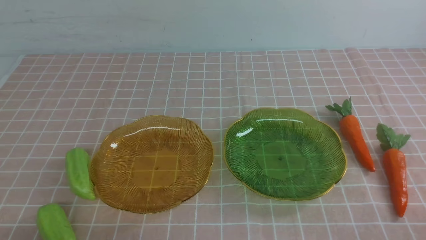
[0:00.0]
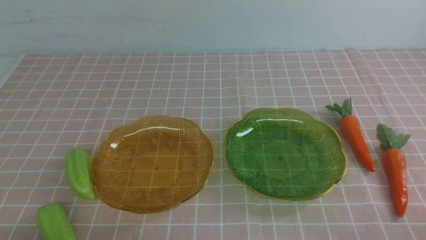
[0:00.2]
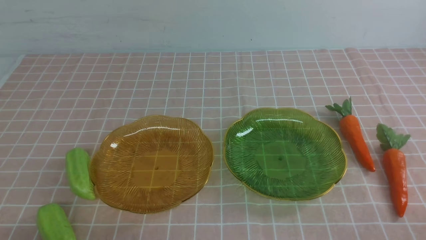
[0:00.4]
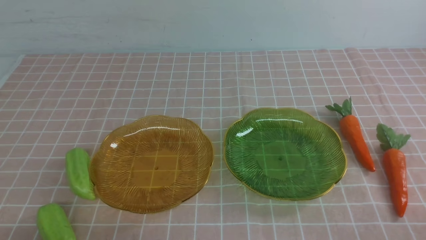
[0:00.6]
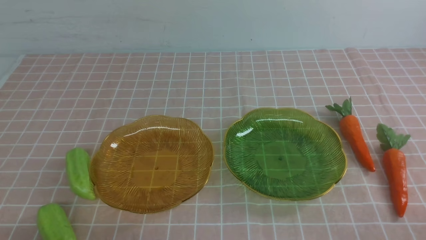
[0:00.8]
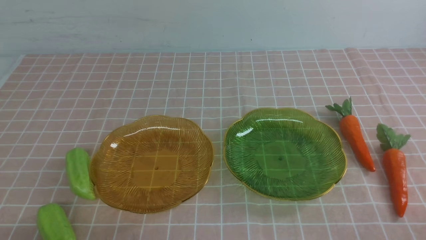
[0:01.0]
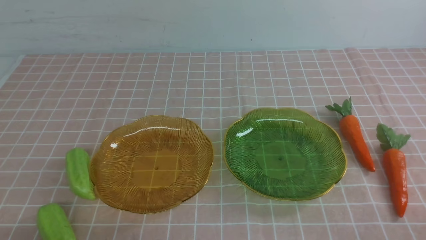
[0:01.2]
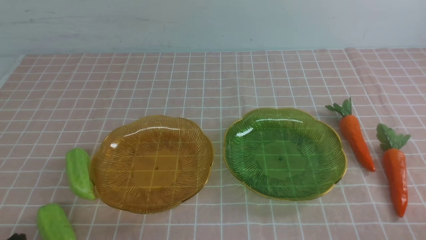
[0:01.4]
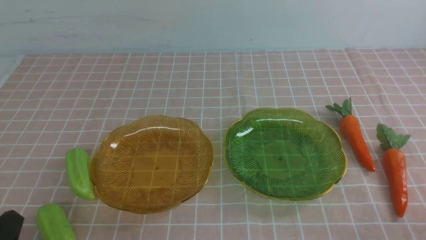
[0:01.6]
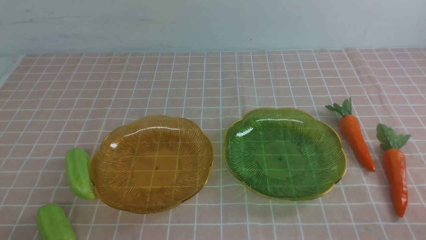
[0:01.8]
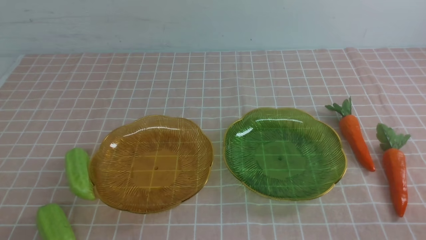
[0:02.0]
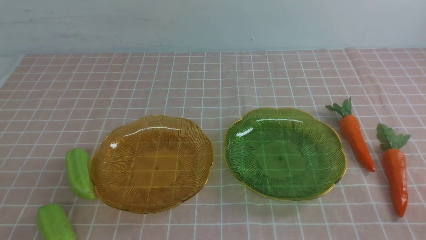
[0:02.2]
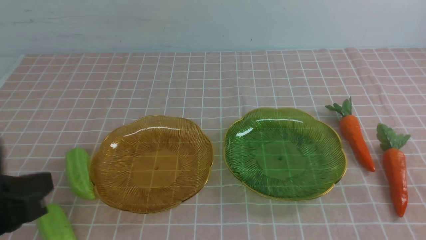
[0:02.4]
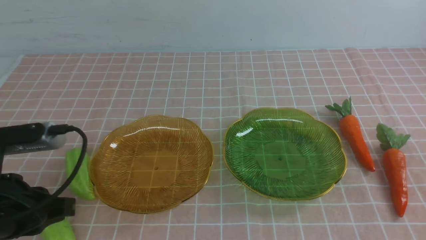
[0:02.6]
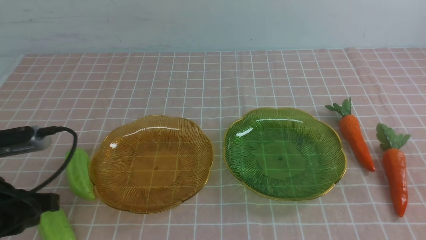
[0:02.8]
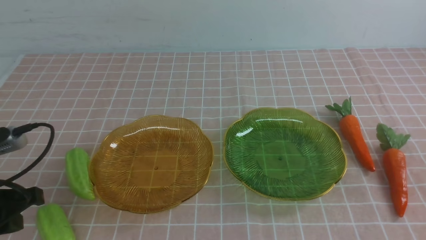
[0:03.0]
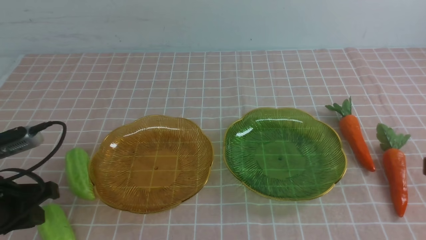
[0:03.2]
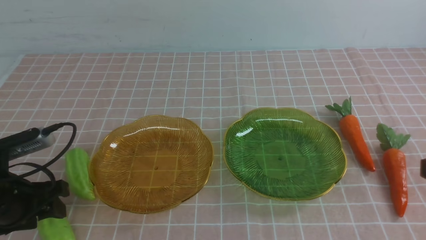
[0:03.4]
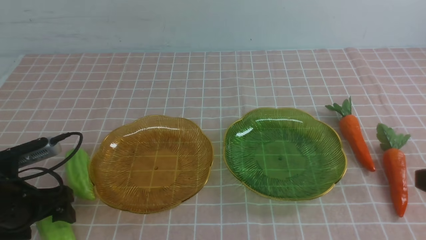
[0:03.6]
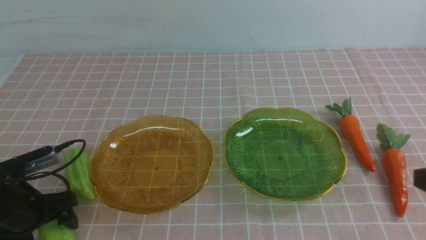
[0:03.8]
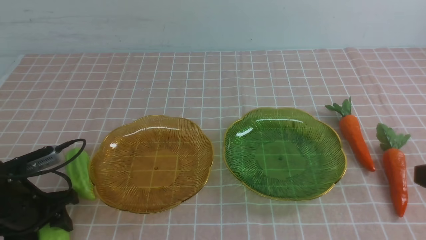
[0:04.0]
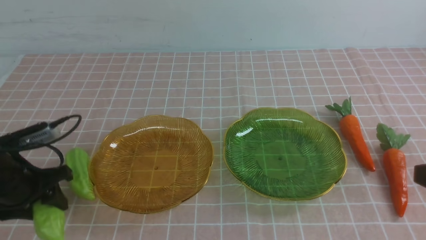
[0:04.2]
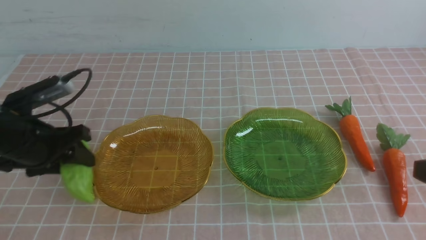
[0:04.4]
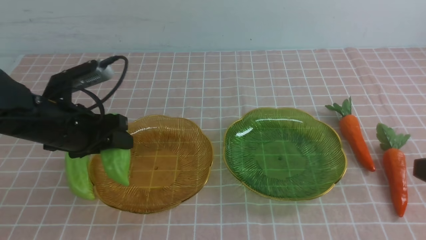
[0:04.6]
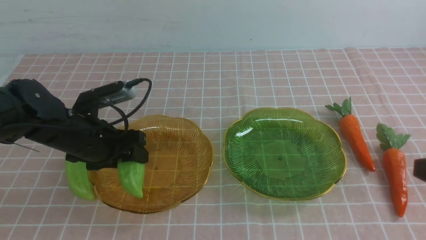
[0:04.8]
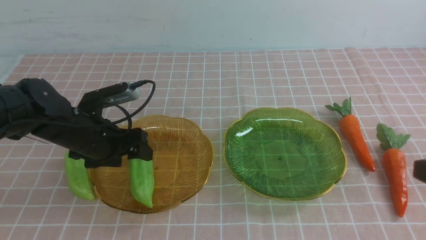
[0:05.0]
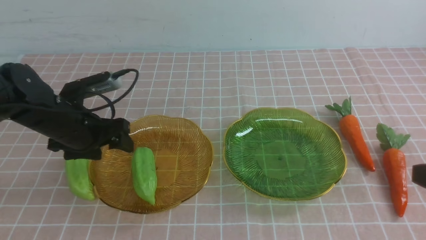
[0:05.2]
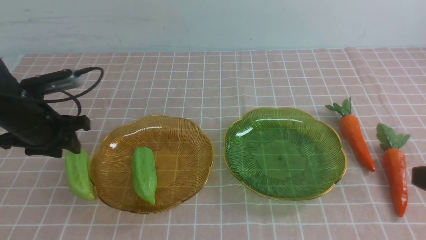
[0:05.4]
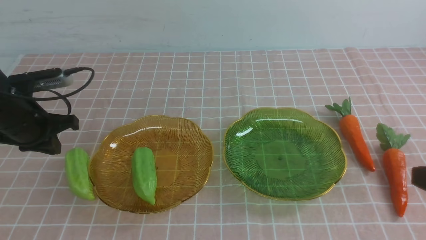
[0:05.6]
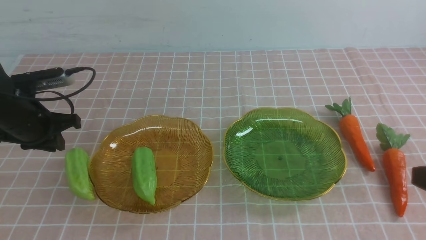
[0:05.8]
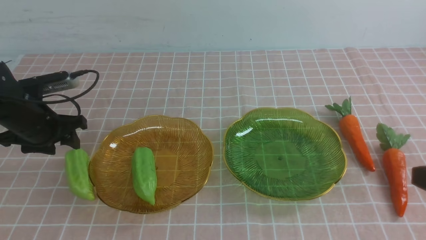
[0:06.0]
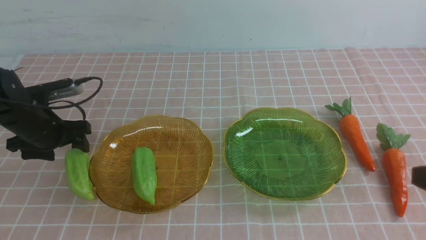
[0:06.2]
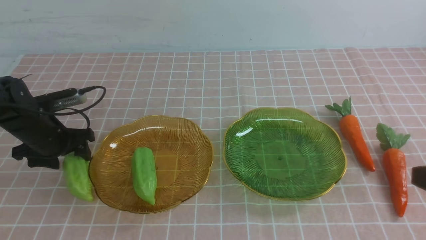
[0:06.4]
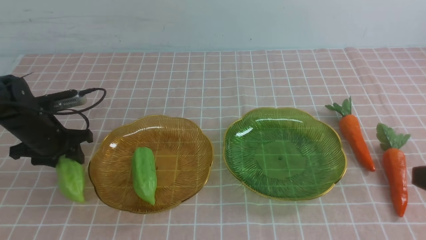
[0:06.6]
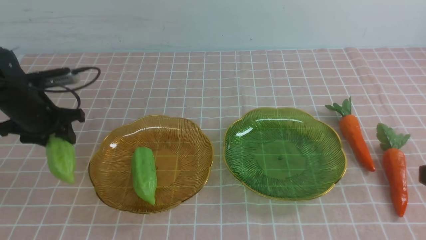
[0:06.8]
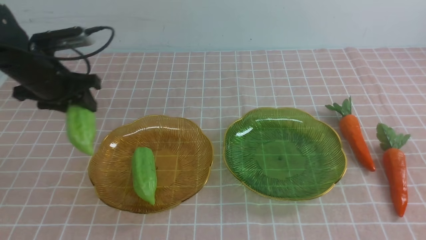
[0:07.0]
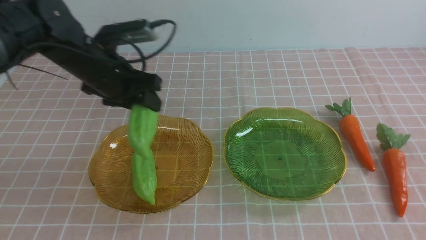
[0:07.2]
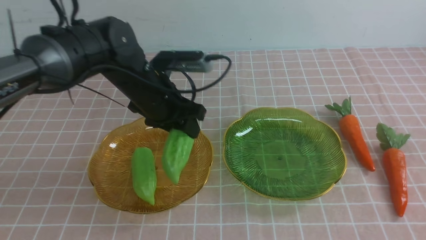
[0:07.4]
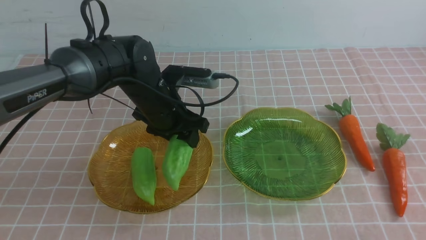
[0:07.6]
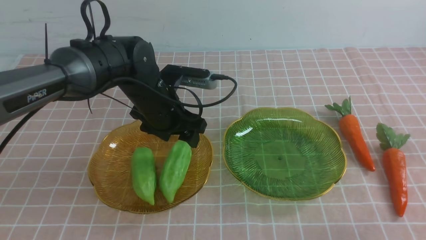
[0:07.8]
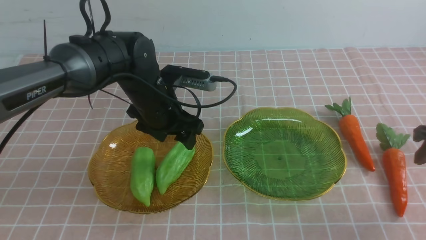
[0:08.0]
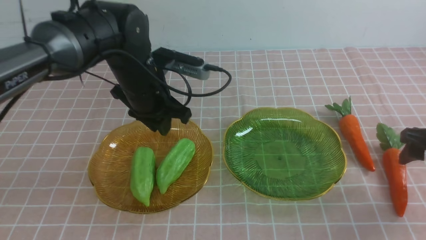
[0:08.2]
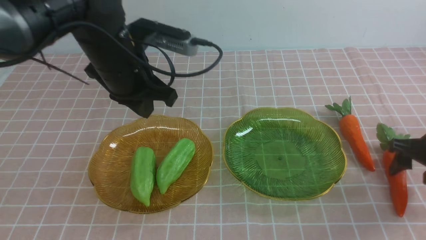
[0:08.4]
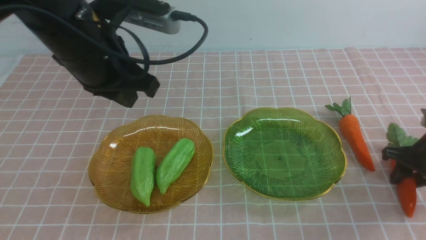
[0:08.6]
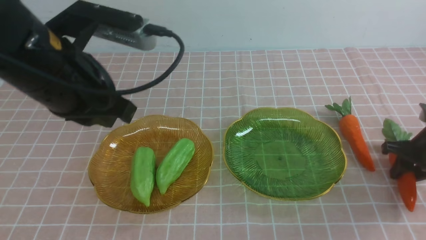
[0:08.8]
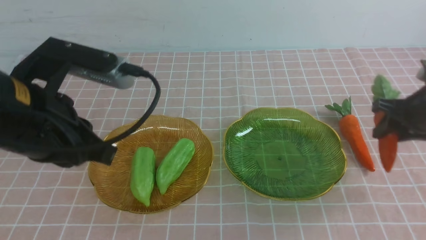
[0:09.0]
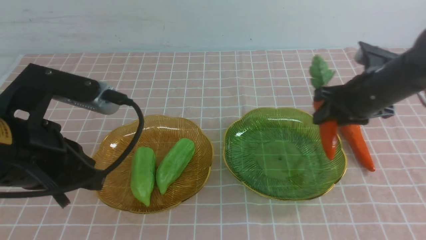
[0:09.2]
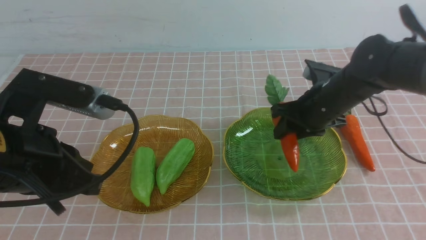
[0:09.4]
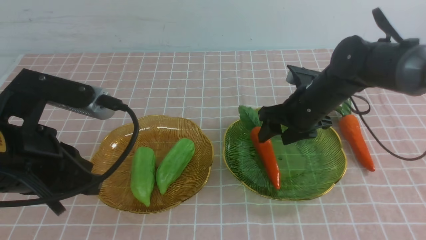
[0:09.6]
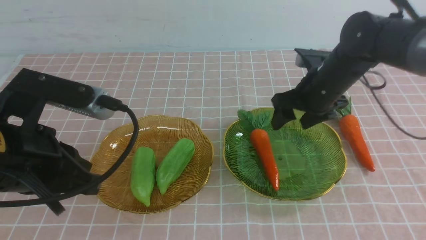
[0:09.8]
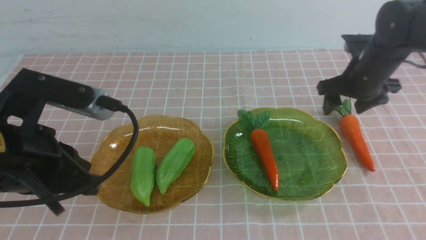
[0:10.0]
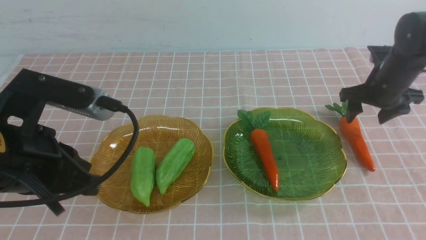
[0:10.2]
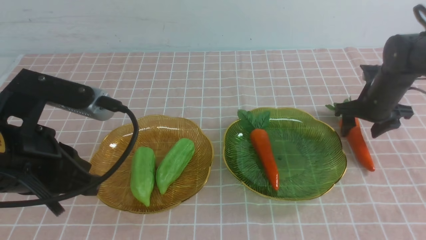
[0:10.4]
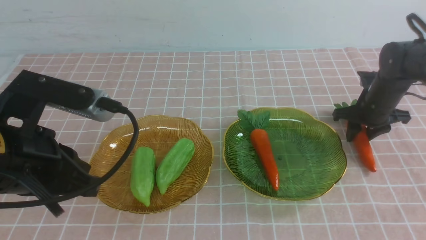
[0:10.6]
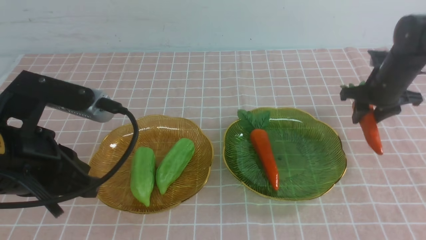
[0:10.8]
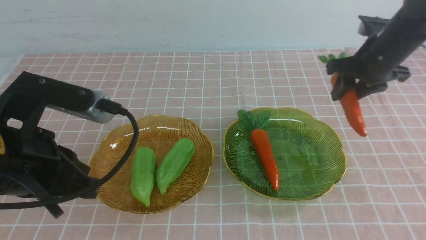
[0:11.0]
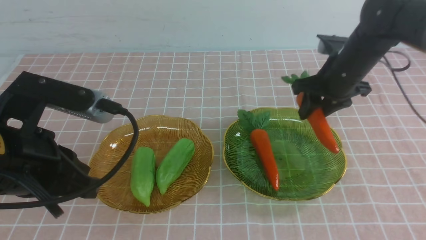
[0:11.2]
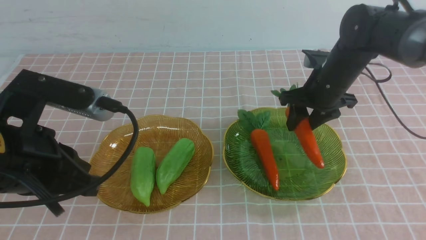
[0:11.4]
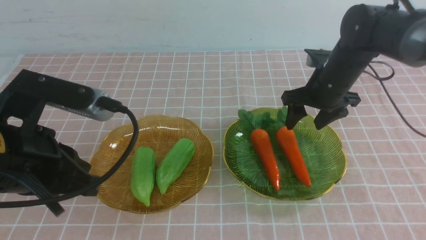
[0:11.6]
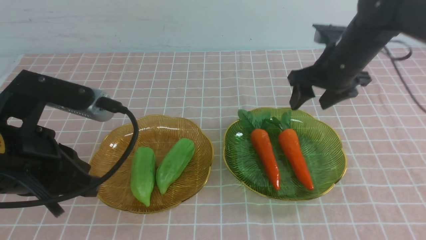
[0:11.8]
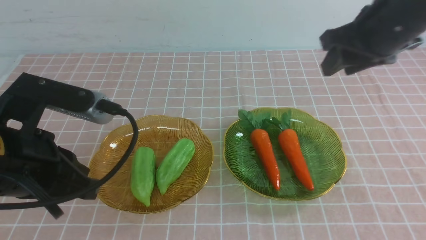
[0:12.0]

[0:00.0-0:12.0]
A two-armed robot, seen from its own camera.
Step, 0:00.0 to 0:05.0: use the left arm to grab a chayote and put it into the left plate.
Step, 0:05.2 to 0:08.0: use the left arm to grab a chayote and put it into the left plate.
Step, 0:08.2 to 0:09.4: use the right arm to grab a carrot and put it into the right plate.
Step, 0:09.8 to 0:11.4: use the right arm to grab a carrot and put it into the right plate.
0:01.6 to 0:03.0: The left gripper is displaced forward by roughly 10 cm.
0:03.0 to 0:04.4: The left gripper heads forward, covering roughly 10 cm, and opens its fingers.
0:04.4 to 0:06.0: The left gripper moves forward, roughly 10 cm, and closes, then reopens.
0:06.0 to 0:07.6: The left gripper travels to the right by approximately 20 cm, while the right gripper heads forward and to the right, covering about 10 cm.
0:07.6 to 0:09.0: The left gripper heads backward, upward and to the left, covering about 25 cm, and closes its fingers, while the right gripper is displaced forward and downward by some 15 cm, and opens and closes again.
0:09.0 to 0:10.4: The right gripper travels forward by approximately 10 cm, reaches some 10 cm to the left, then returns, and opens, then closes once more.
0:10.4 to 0:12.0: The right gripper goes about 35 cm backward and upward, and closes up.

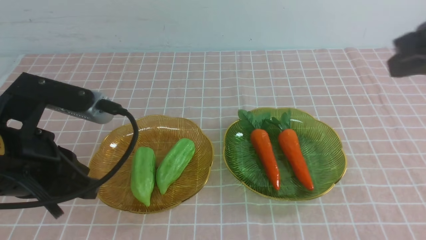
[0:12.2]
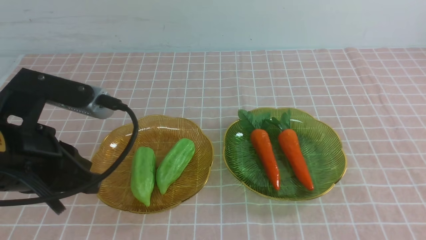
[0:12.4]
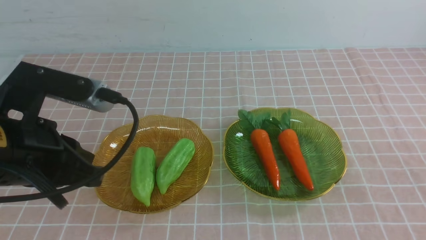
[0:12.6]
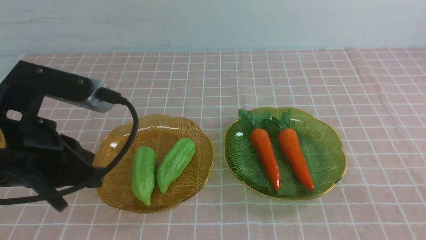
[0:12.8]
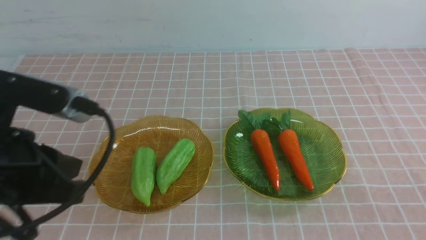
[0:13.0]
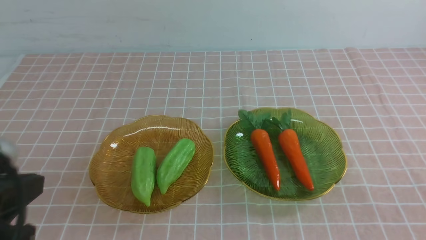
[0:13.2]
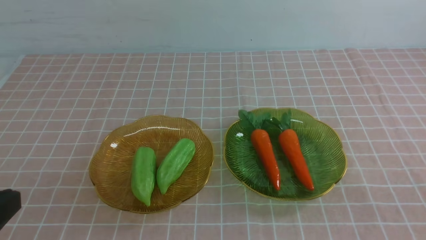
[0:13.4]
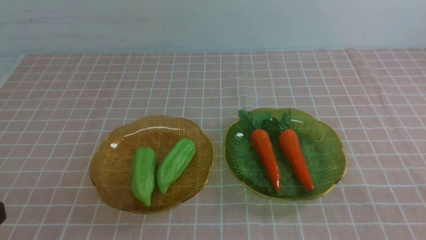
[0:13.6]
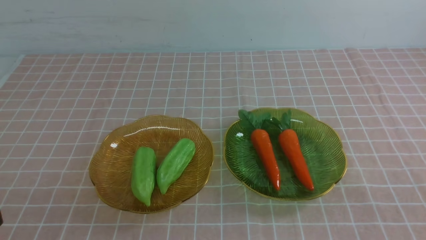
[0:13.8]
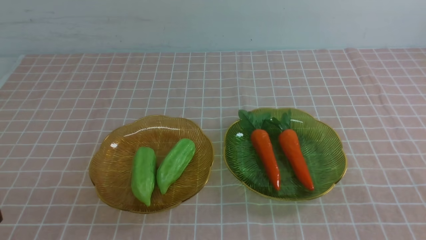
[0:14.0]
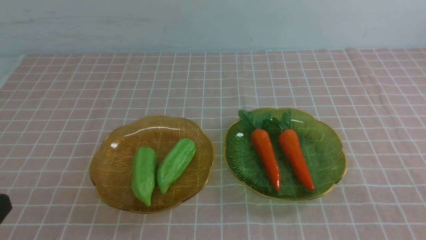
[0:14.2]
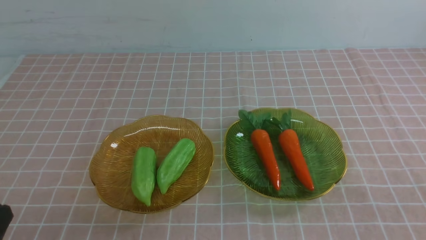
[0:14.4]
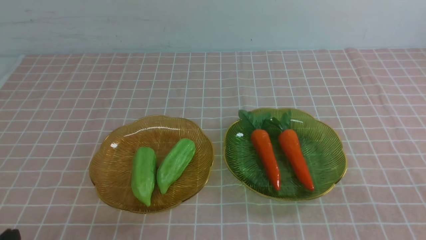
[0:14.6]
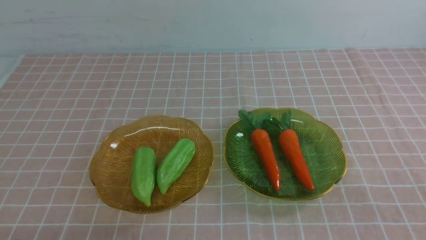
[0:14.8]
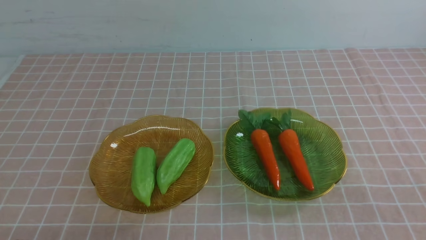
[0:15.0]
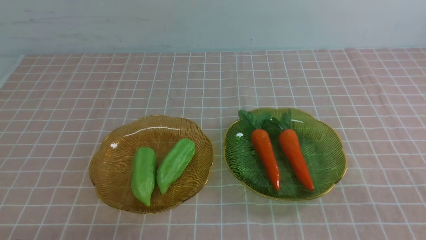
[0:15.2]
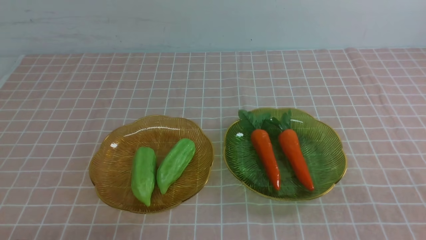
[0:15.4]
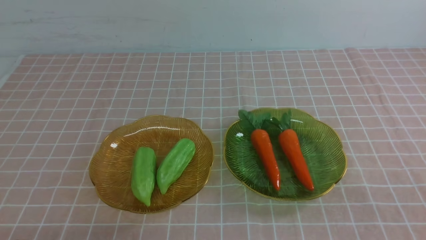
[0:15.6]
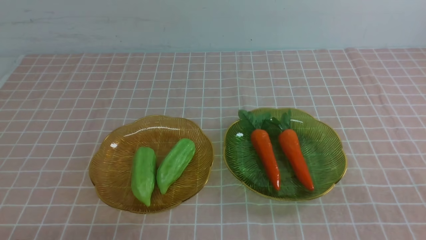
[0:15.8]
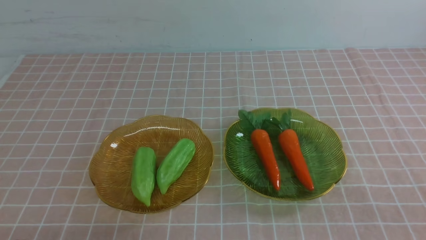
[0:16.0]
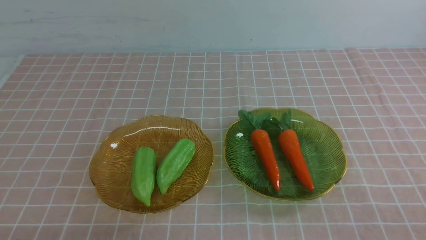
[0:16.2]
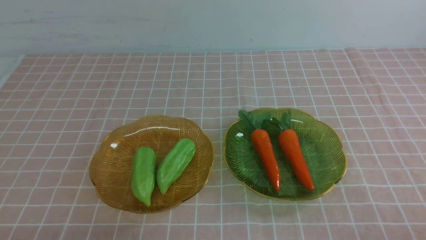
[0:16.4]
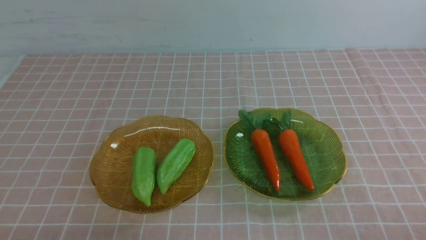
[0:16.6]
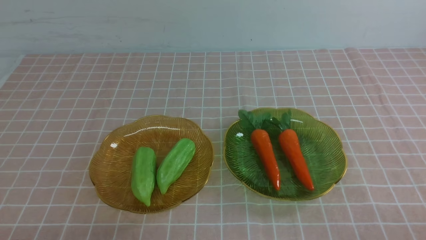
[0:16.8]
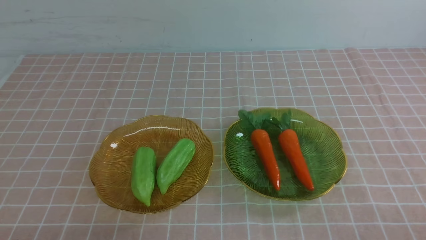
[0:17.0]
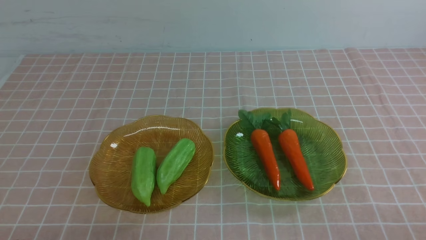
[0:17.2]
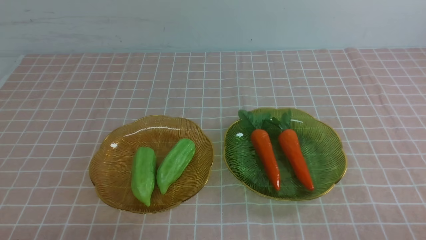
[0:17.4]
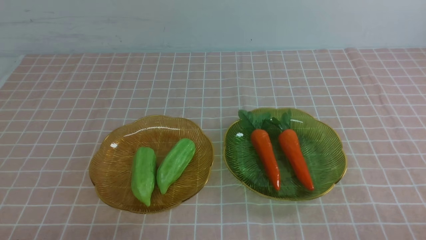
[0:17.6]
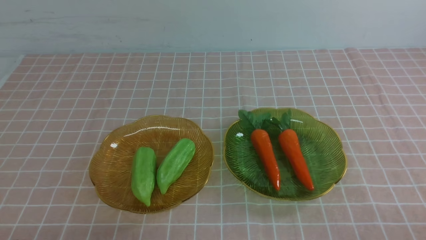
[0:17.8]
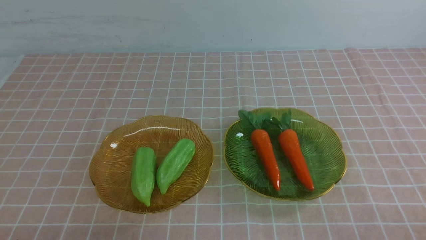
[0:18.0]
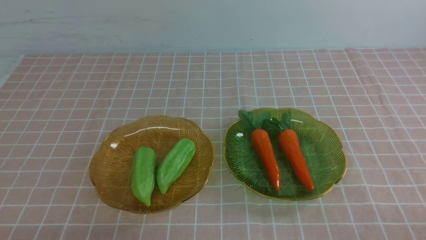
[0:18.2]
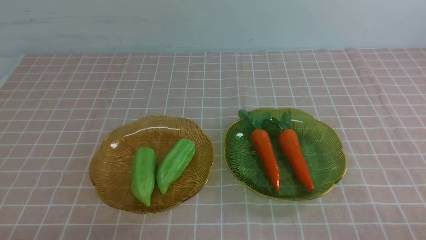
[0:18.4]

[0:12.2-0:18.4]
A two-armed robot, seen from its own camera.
0:12.2 to 0:13.8: The left gripper travels backward and to the left by approximately 15 cm; the right gripper shifts about 5 cm downward.
0:16.8 to 0:18.4: The two grippers keep their place.
